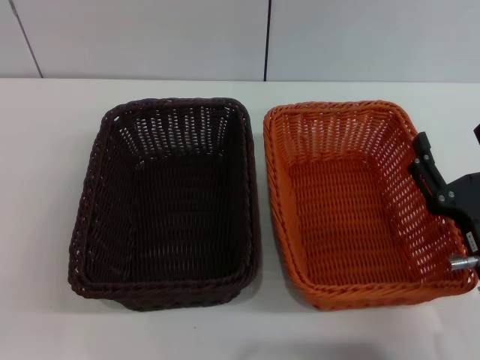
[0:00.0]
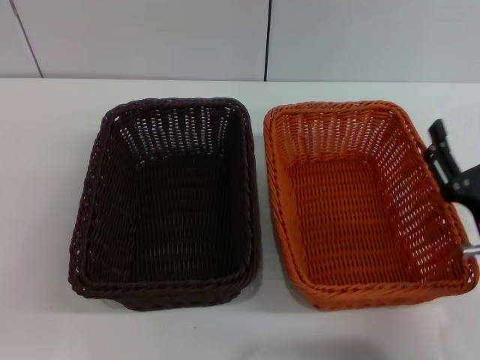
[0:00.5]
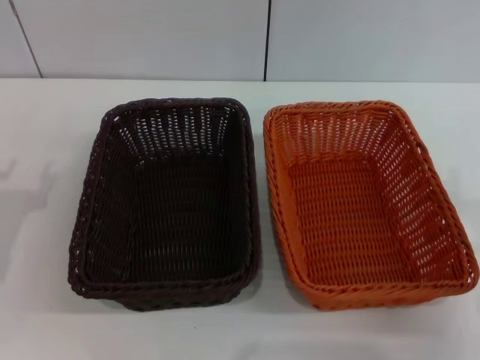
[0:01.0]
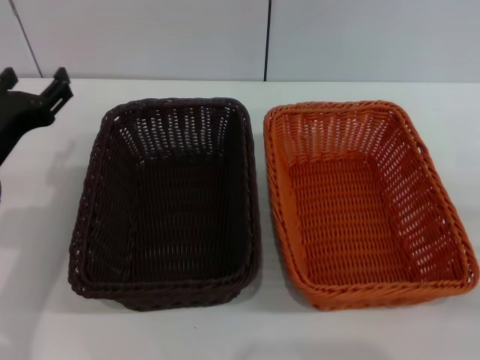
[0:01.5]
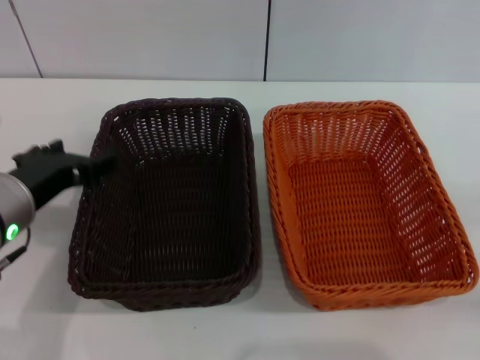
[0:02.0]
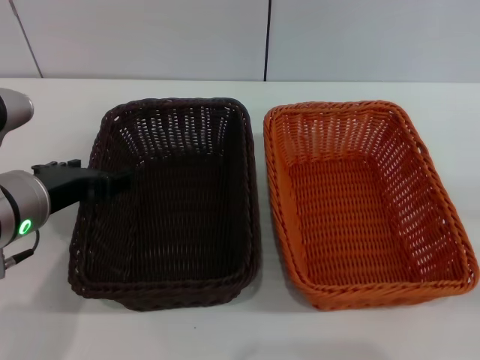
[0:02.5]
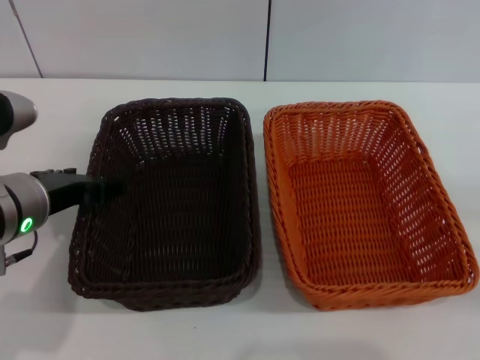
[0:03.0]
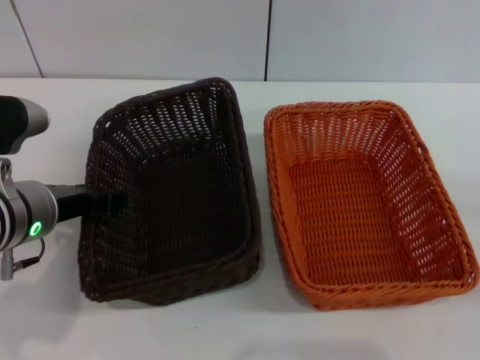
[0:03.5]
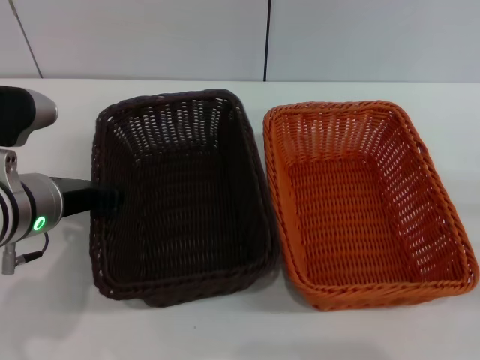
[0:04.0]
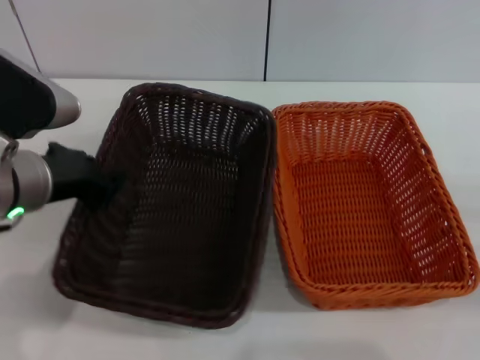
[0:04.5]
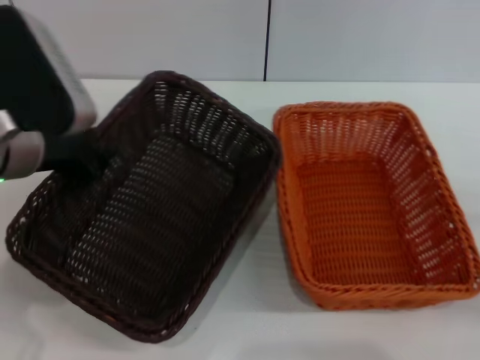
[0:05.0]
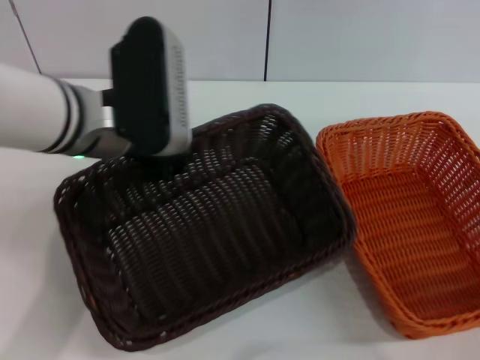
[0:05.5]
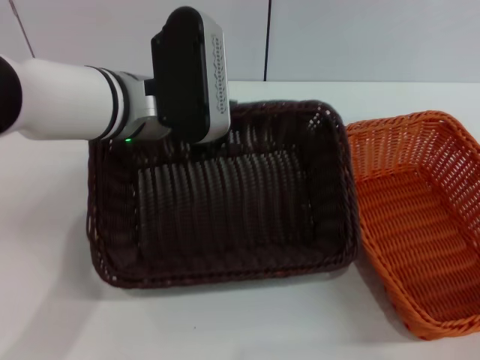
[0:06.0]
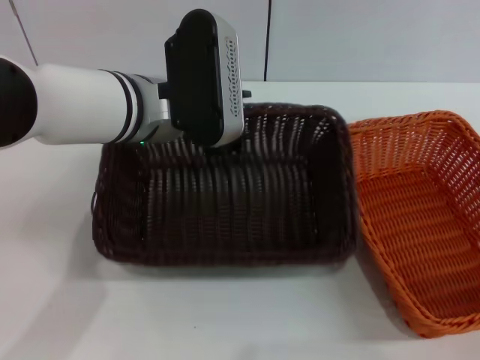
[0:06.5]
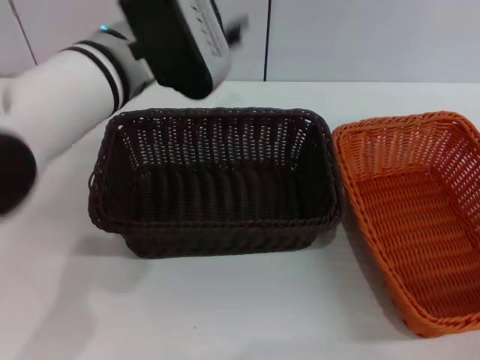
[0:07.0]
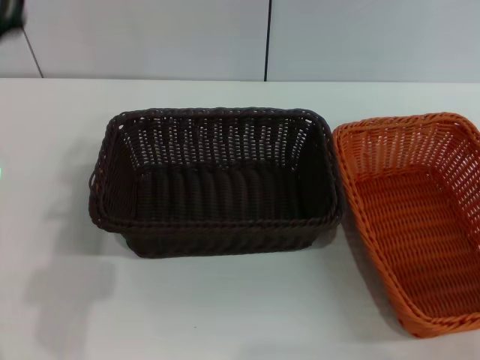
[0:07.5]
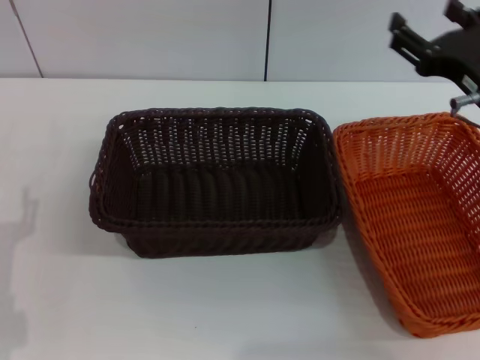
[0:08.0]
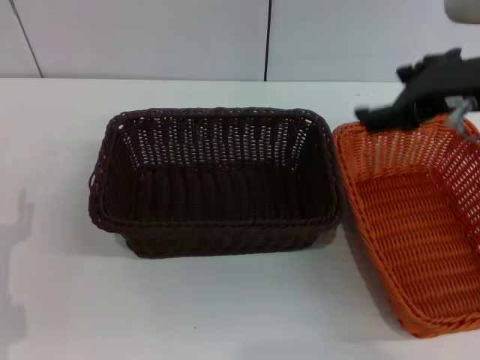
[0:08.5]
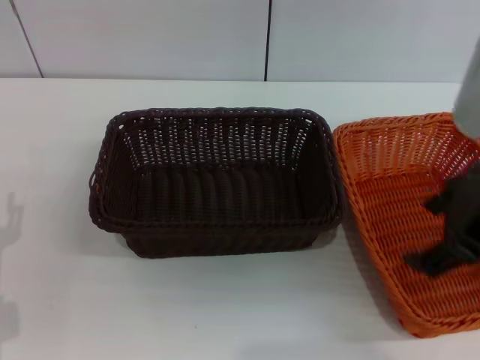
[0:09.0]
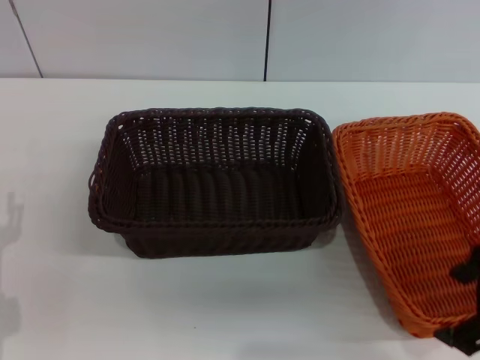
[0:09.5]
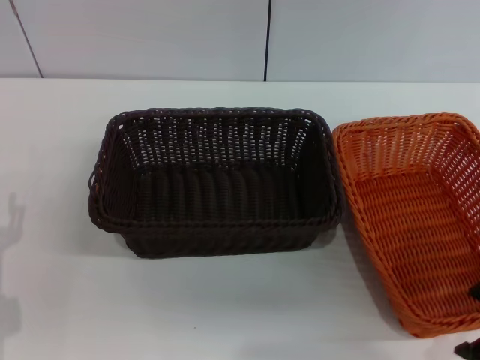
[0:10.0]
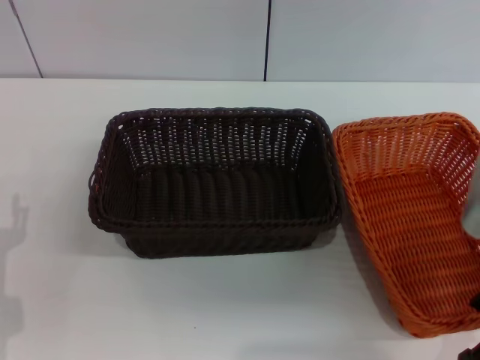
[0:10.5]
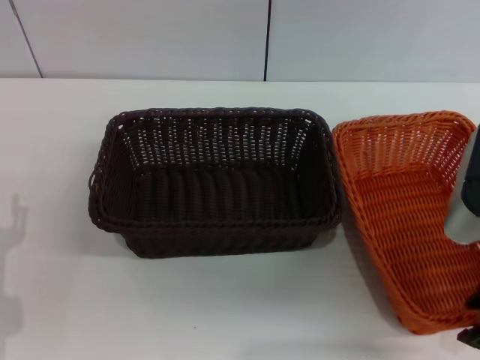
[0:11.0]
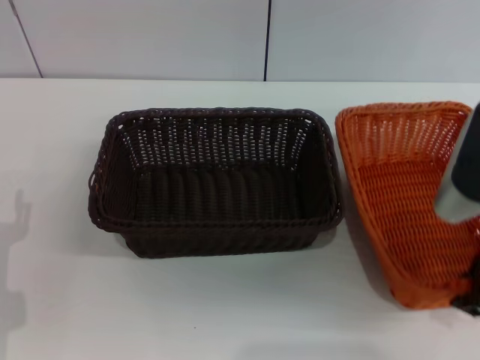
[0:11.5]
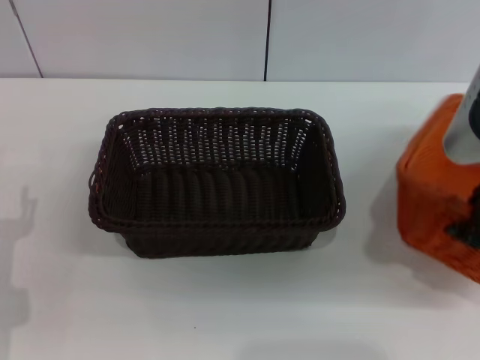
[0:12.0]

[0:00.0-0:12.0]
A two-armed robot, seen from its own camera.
Step, 0:00.0 to 0:04.5: Pick up the dark basket with the left gripper.
Step, 0:05.0 to 0:06.5: Place the dark basket in the center of view with the left gripper.
0:00.0 to 0:02.0: The right gripper moves to the right, some 15 cm. The left gripper shifts approximately 20 cm to the right, upward and forward.
0:02.0 to 0:04.0: The left gripper closes.
0:04.0 to 0:06.0: The left gripper shifts roughly 10 cm to the right and forward.
0:06.0 to 0:08.0: The left gripper moves backward, to the left and downward, about 25 cm, and opens up; the right gripper heads upward, to the left and forward, covering about 20 cm.
0:08.0 to 0:10.0: The right gripper travels backward and upward by about 10 cm.
0:10.0 to 0:12.0: The right gripper closes its fingers.

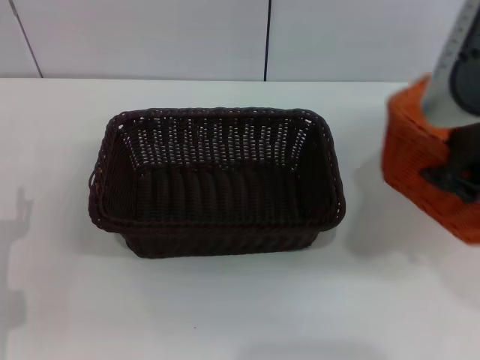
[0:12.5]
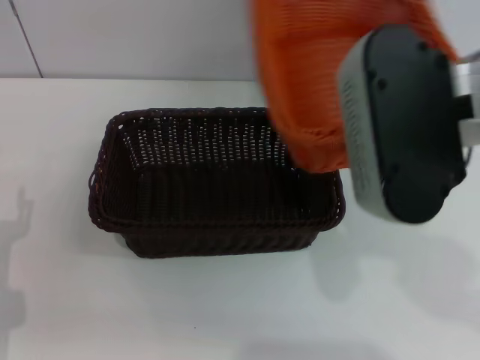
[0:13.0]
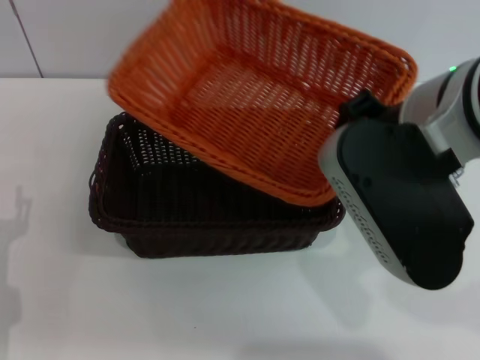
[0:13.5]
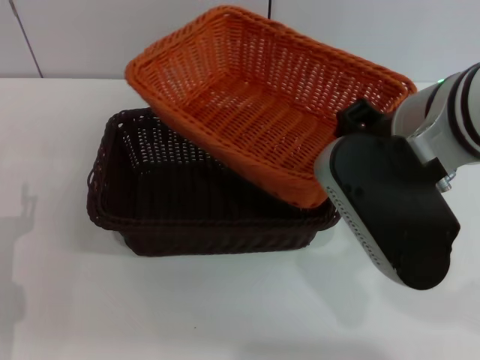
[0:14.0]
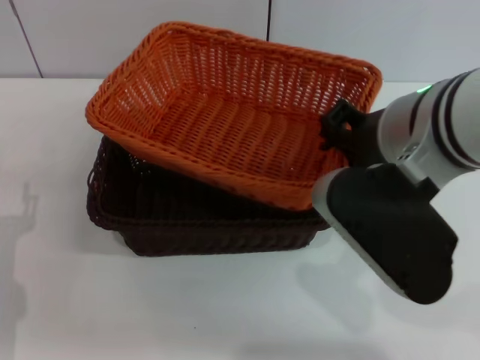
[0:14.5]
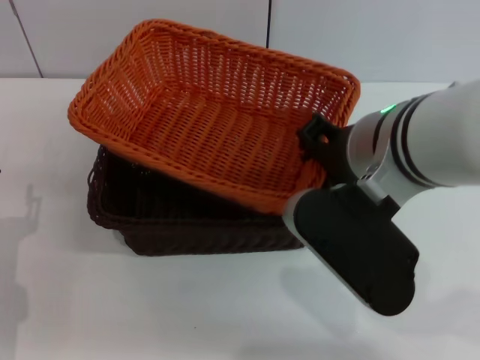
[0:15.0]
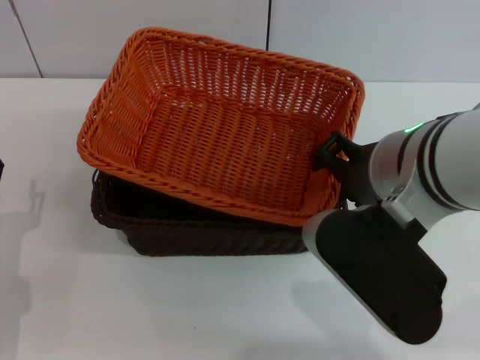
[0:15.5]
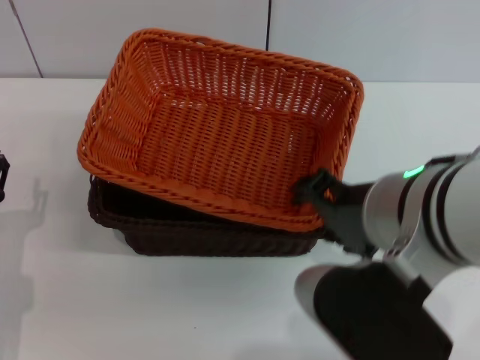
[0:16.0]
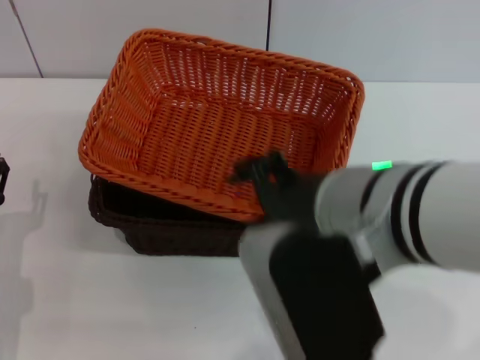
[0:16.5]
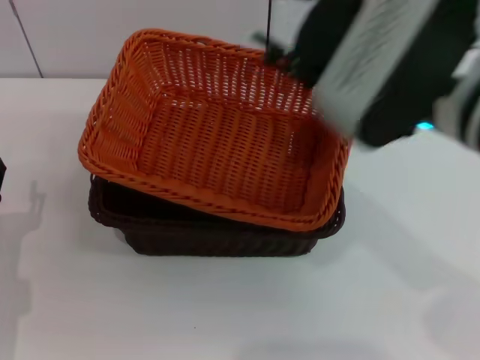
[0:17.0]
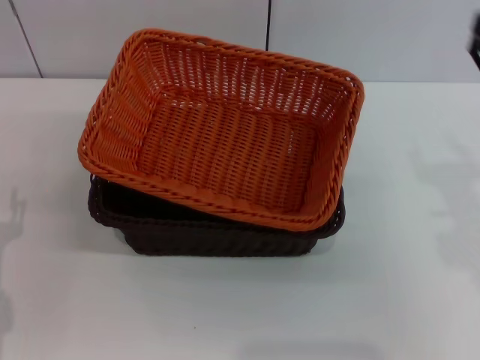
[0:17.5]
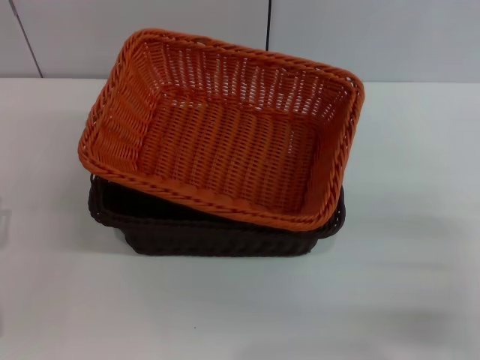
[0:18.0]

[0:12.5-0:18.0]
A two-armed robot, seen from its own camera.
Step, 0:13.0 to 0:15.5: Place the light basket on the dark basket with the right gripper.
0:12.5 to 0:14.5: The right gripper travels to the left by approximately 5 cm.
0:14.5 to 0:16.0: The right gripper heads backward, covering roughly 5 cm, and opens its fingers.
0:16.0 to 0:18.0: The right gripper travels to the right and downward by approximately 25 cm.

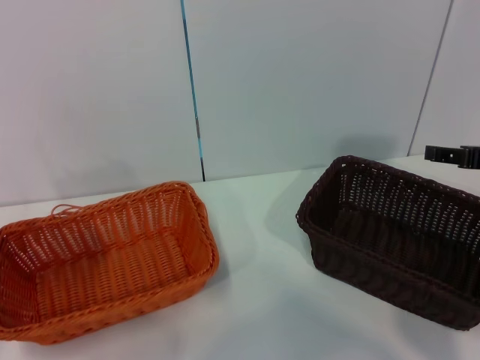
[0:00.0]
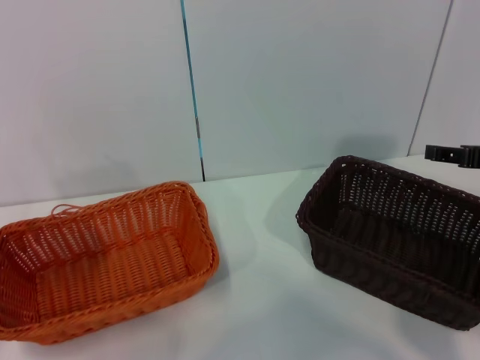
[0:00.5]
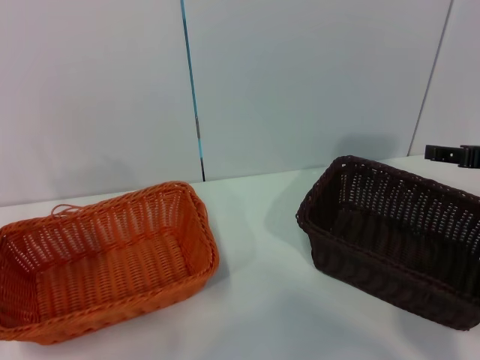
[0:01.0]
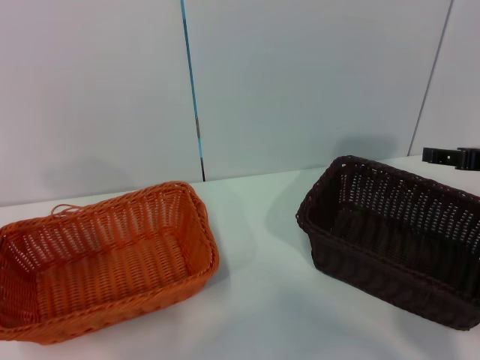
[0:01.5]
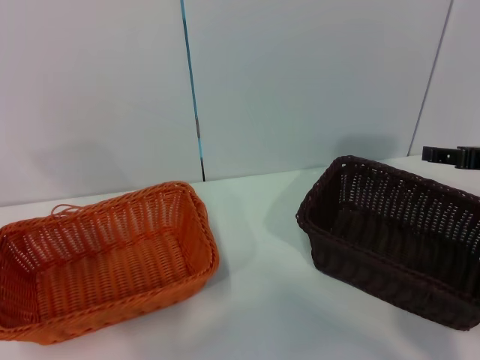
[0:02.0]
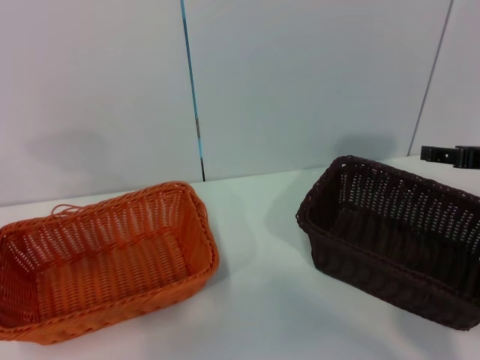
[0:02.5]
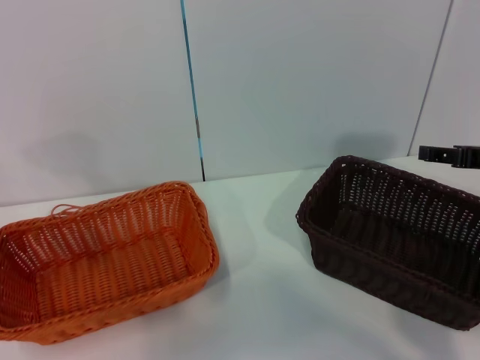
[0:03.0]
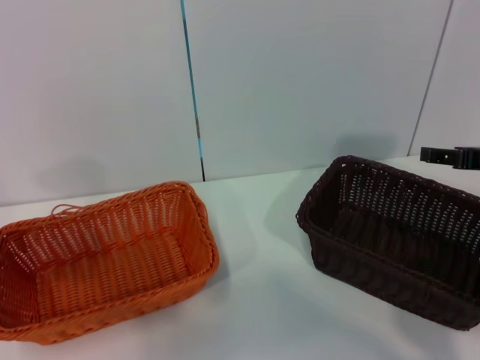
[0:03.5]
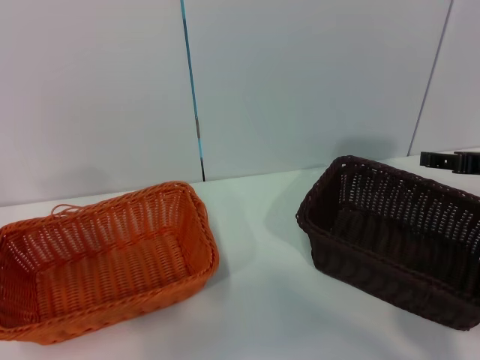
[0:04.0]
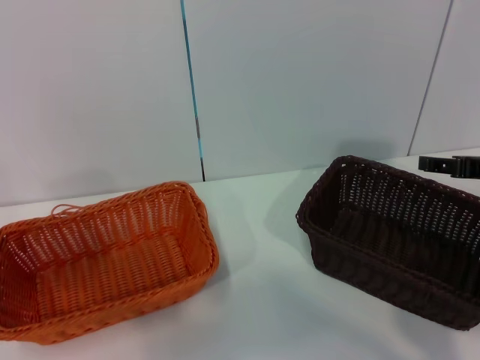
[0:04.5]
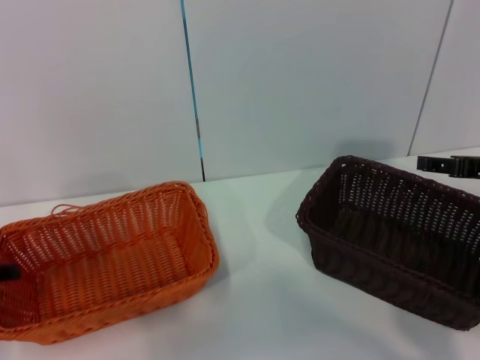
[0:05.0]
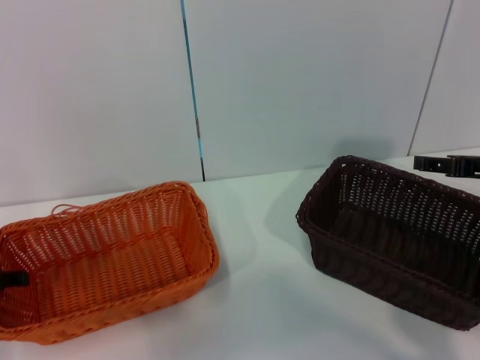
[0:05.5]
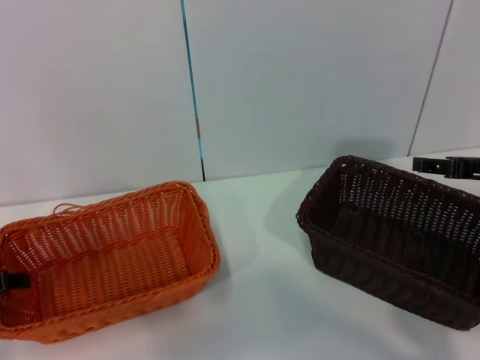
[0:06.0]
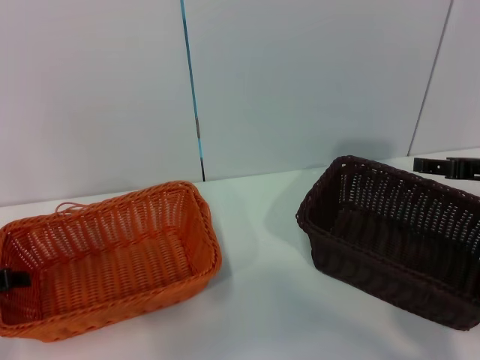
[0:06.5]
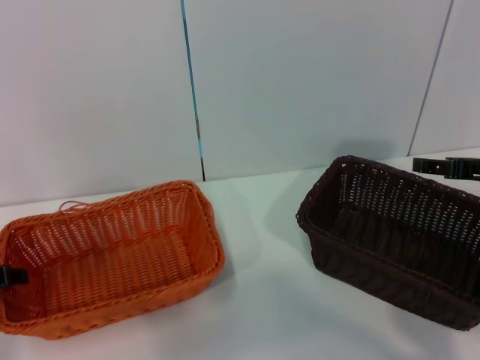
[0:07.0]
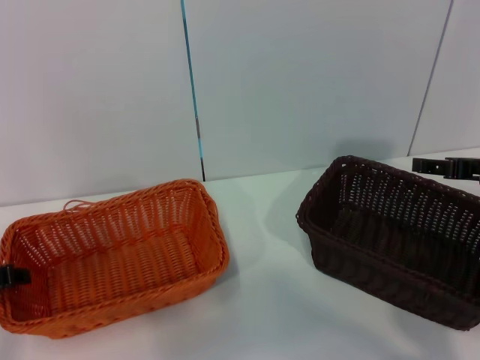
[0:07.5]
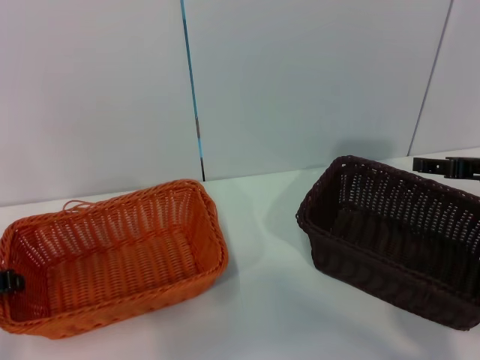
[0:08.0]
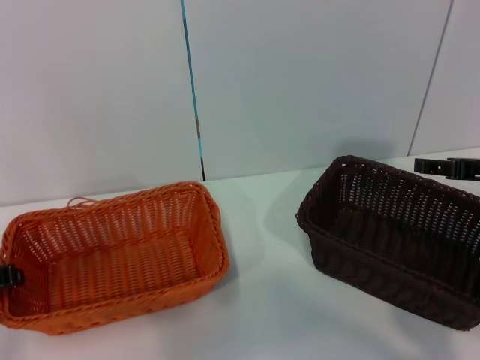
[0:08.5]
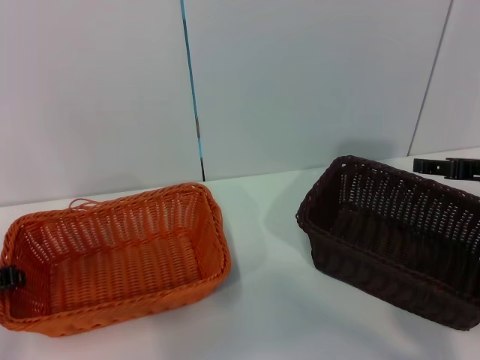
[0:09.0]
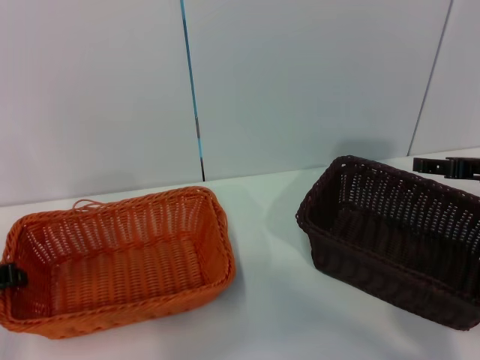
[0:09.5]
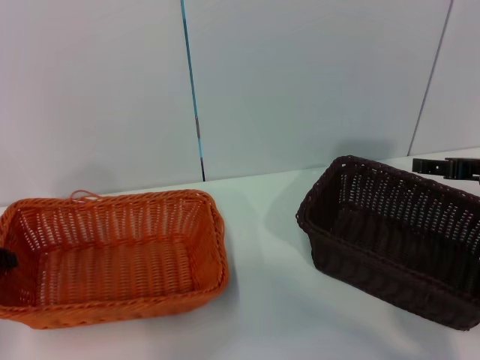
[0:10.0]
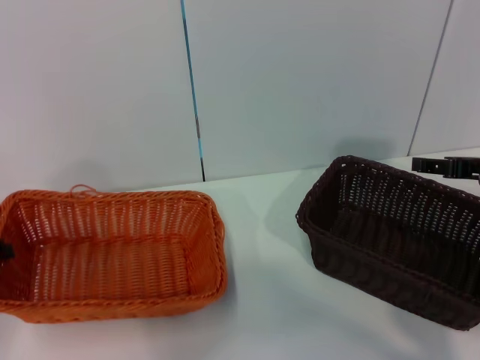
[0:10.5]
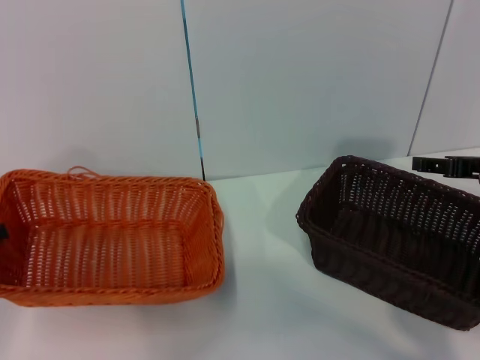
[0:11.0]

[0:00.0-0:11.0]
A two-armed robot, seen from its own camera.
0:05.5 to 0:07.5: The left gripper closes.
0:07.5 to 0:09.0: The two grippers keep their place.
0:09.0 to 0:11.0: The left gripper heads upward, covering approximately 5 cm.
